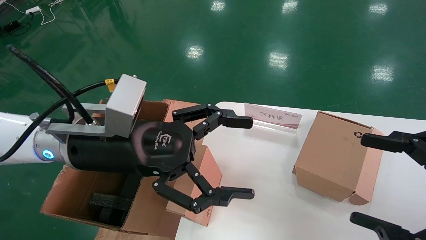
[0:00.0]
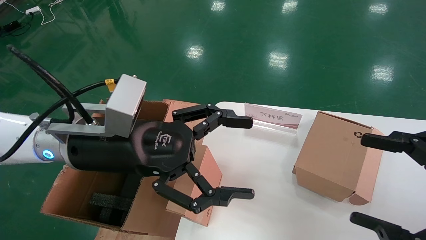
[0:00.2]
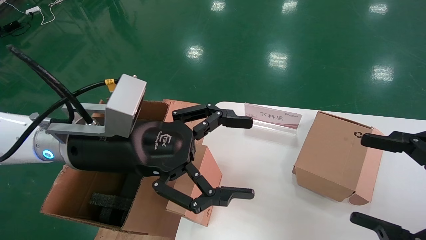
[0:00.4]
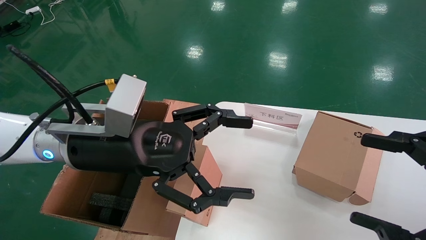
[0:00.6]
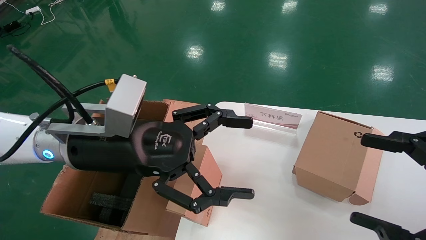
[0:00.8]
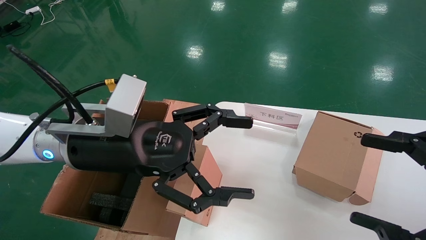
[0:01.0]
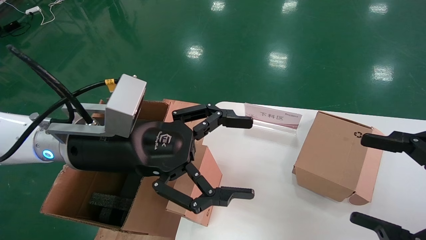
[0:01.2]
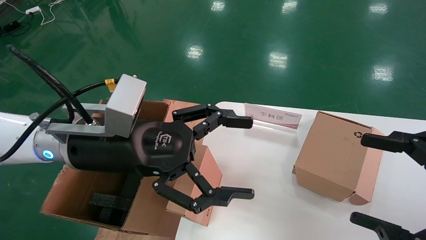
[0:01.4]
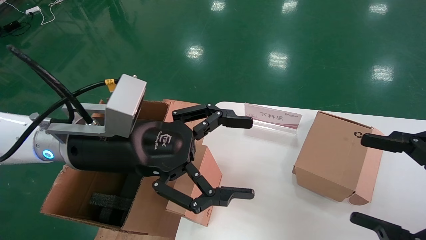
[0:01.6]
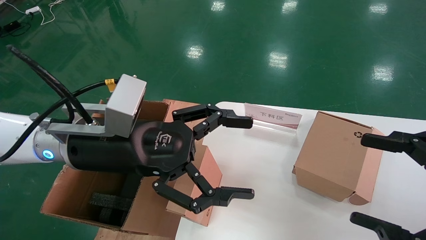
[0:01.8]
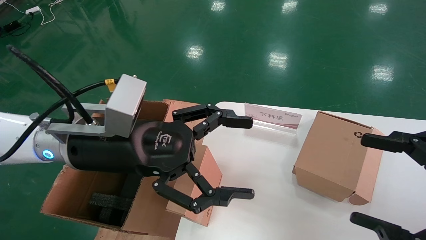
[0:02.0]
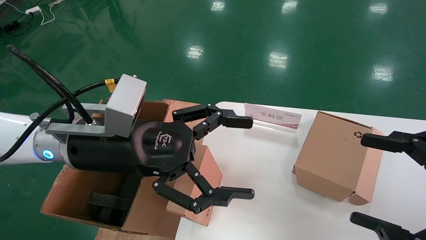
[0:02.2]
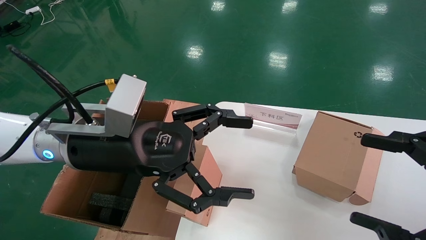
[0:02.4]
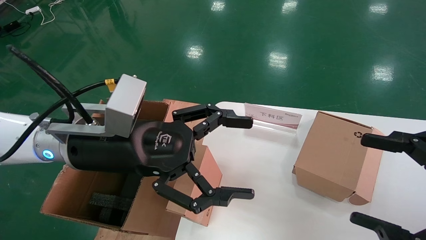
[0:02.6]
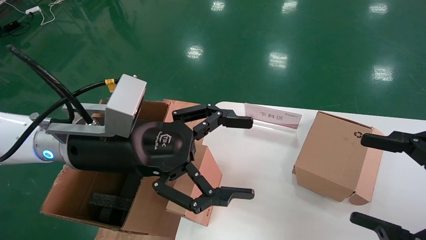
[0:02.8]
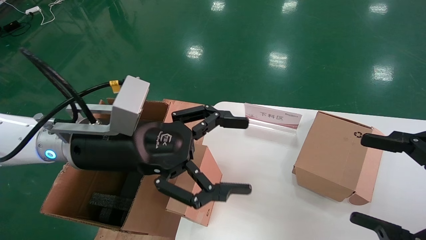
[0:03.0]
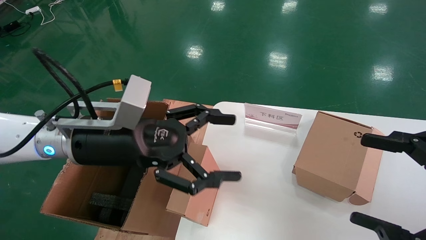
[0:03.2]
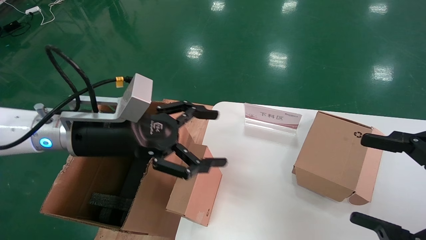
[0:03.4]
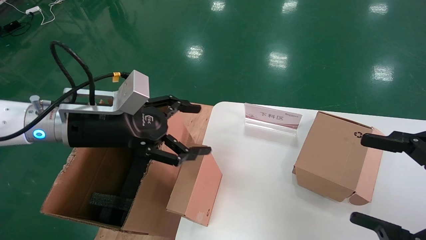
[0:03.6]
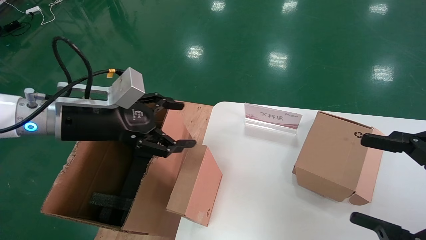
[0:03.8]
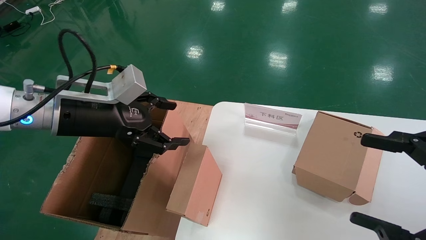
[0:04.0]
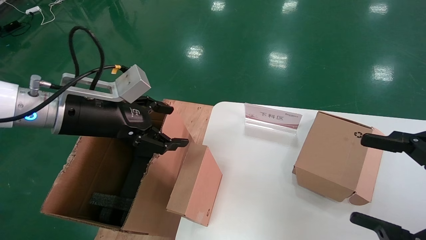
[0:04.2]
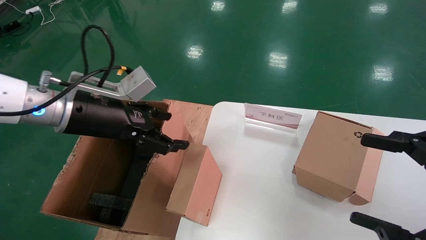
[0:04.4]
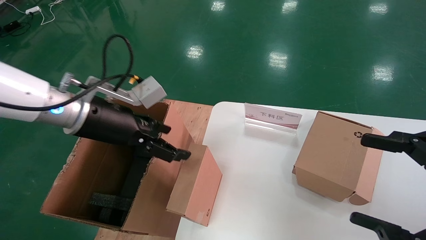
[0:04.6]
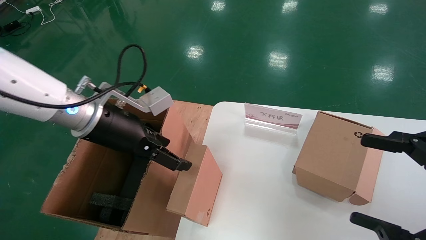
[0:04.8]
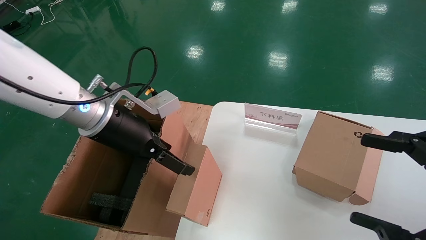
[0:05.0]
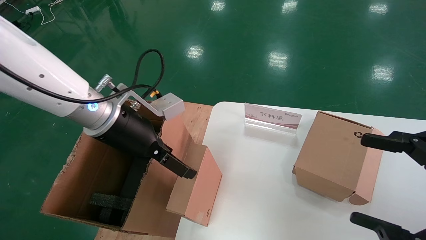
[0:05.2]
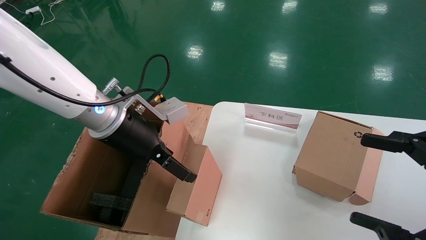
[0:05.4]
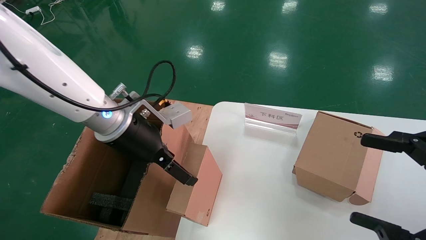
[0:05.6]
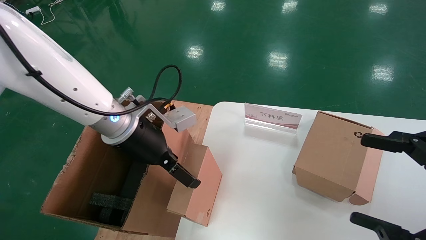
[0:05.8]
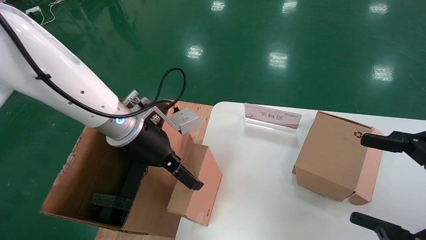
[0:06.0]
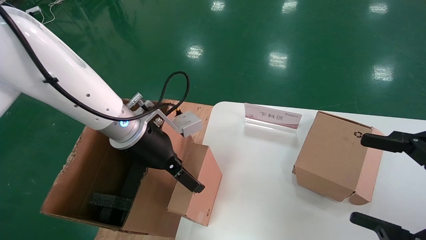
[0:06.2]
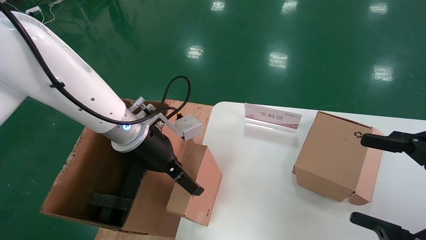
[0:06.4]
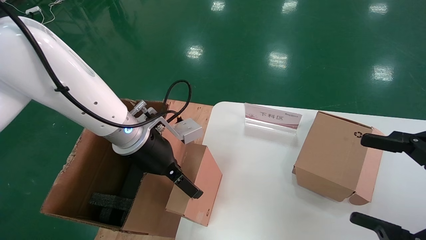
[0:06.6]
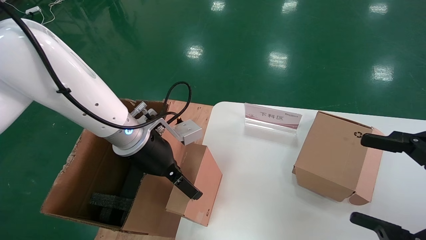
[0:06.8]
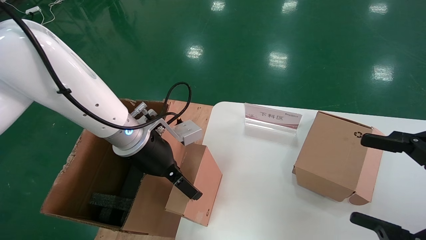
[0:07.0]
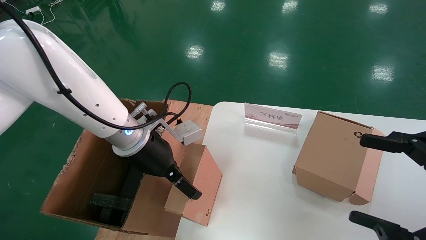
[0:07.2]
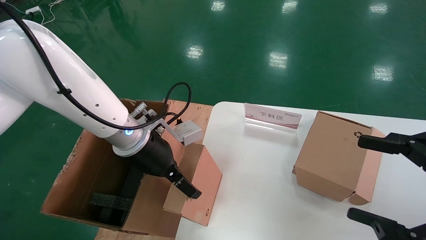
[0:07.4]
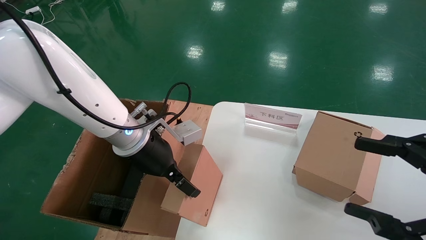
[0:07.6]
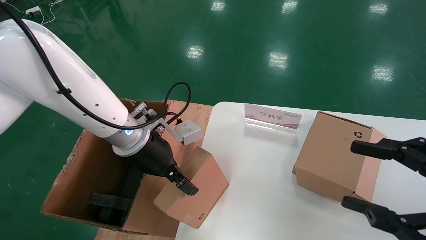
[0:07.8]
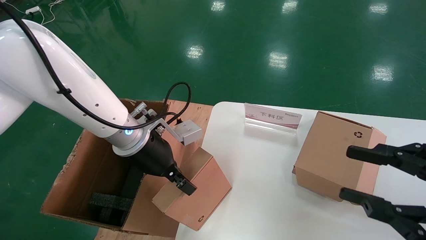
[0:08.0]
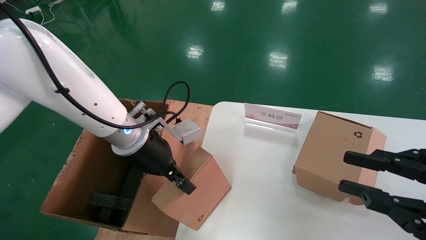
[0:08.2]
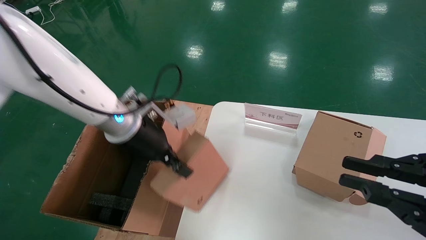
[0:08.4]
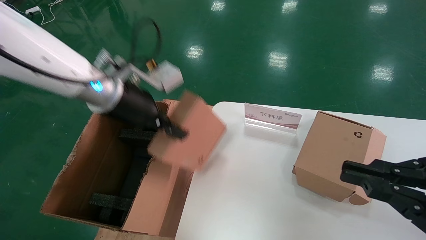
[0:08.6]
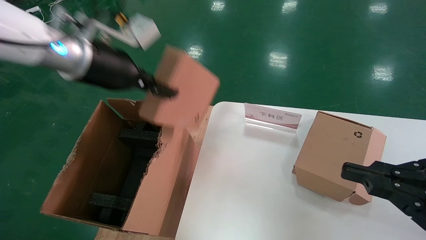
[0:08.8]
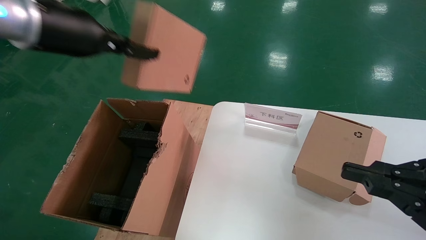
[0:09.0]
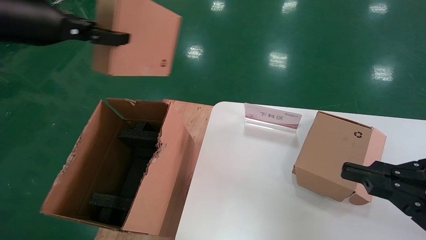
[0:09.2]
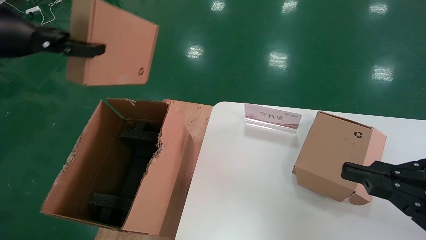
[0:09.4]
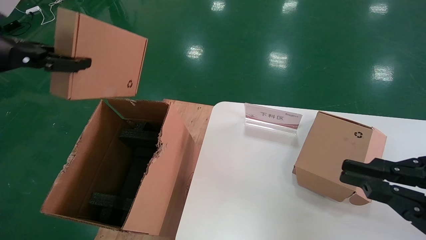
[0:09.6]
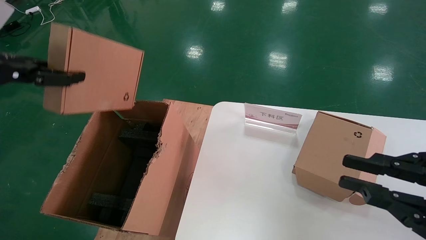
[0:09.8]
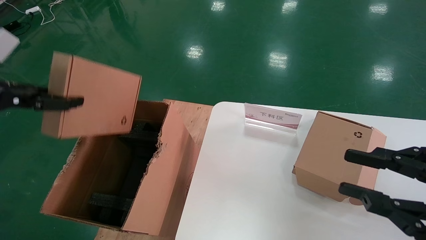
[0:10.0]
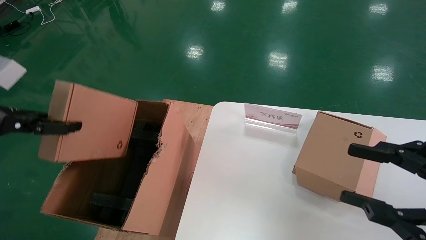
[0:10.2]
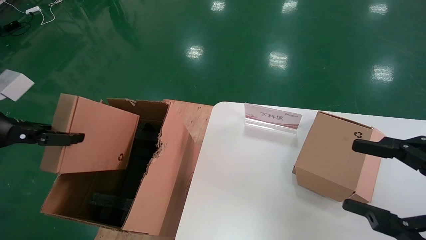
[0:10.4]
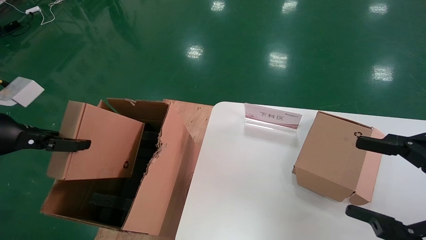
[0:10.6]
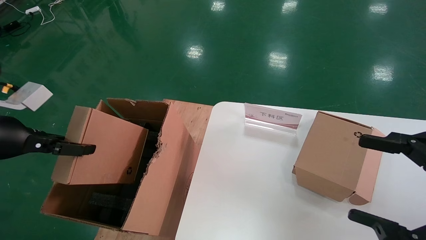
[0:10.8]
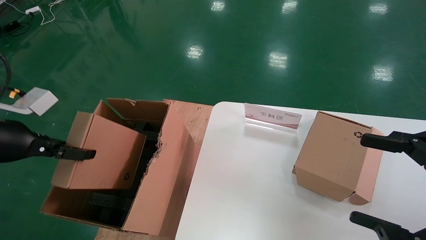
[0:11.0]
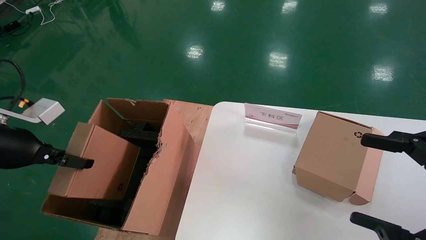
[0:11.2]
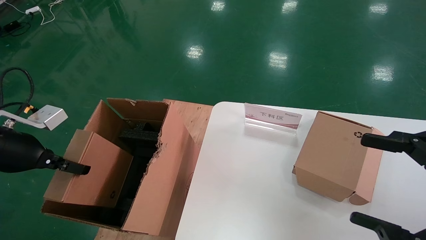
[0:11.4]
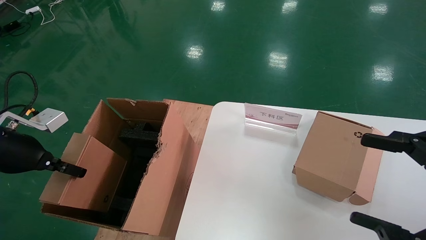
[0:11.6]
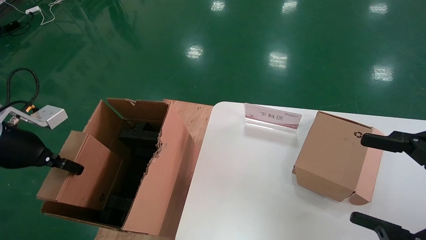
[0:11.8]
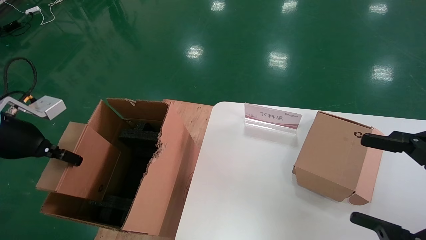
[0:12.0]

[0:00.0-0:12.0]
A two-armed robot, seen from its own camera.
Task of the whole recording: put the box on the table into the big box.
Step, 0:00.0 to 0:07.8: Grasp the paper box.
0:00.0 to 0:03.0: Neither gripper changes place.
0:03.0 to 0:04.4: The left gripper travels to the left by some 5 cm.
0:04.4 to 0:06.0: The left gripper moves to the right, some 5 cm.
0:06.0 to 0:07.6: There are only small adjustments of the grippers.
0:07.6 to 0:09.0: The right gripper closes up; the left gripper shifts about 25 cm upward and to the left, and closes its fingers.
0:09.0 to 0:10.4: The right gripper opens, while the left gripper travels downward, to the left and backward by some 20 cm.
0:10.4 to 0:12.0: The left gripper shifts roughly 5 cm forward; the right gripper opens up.

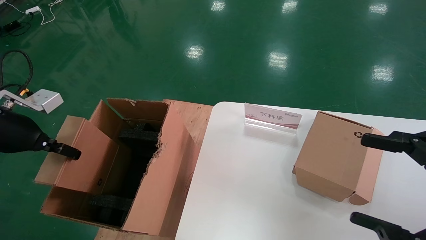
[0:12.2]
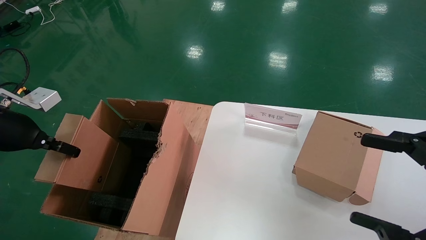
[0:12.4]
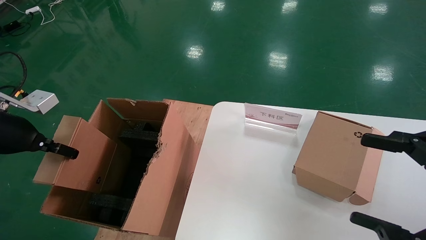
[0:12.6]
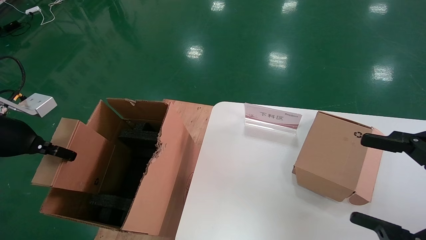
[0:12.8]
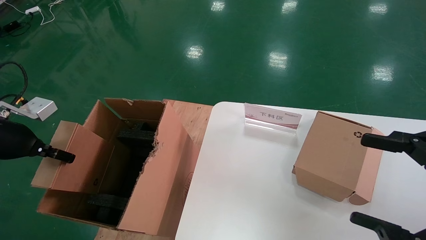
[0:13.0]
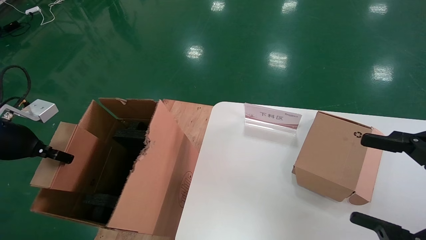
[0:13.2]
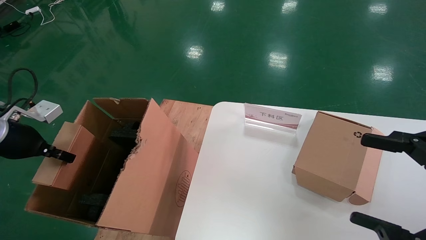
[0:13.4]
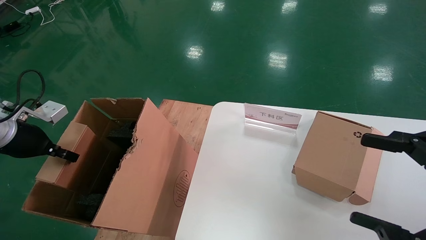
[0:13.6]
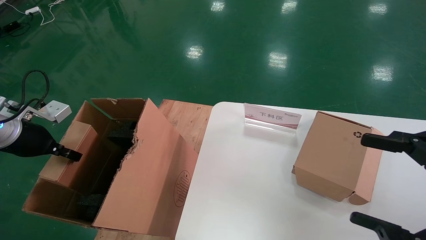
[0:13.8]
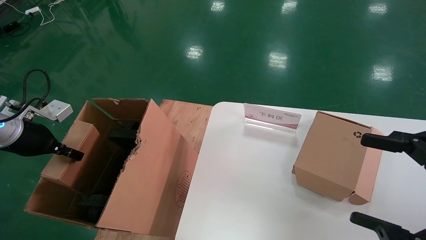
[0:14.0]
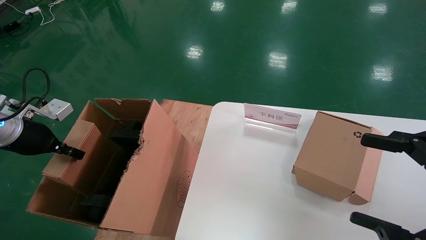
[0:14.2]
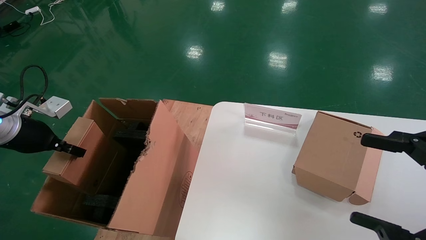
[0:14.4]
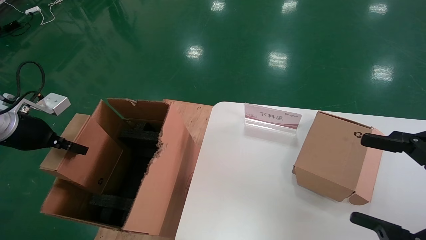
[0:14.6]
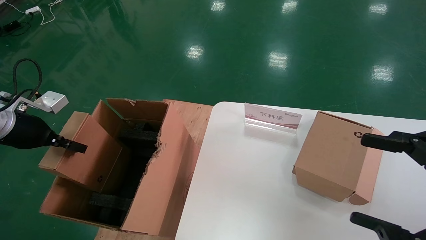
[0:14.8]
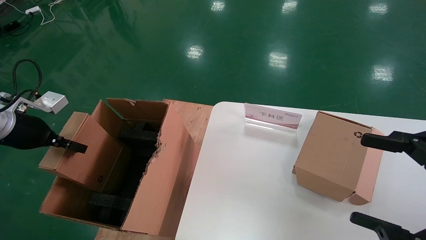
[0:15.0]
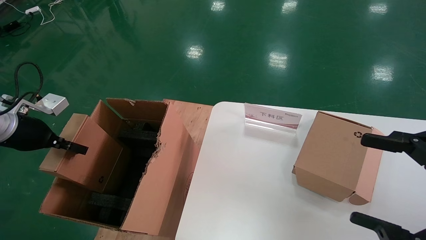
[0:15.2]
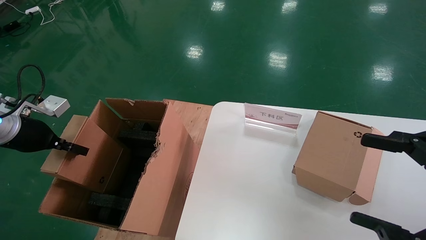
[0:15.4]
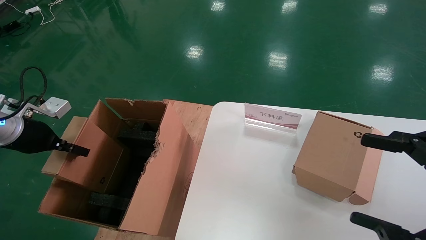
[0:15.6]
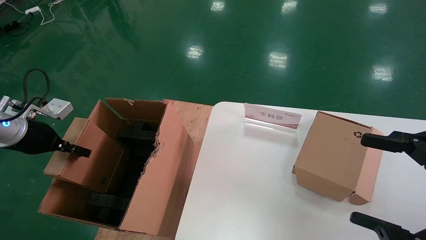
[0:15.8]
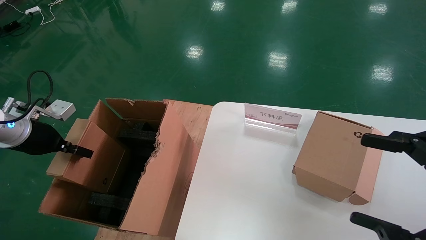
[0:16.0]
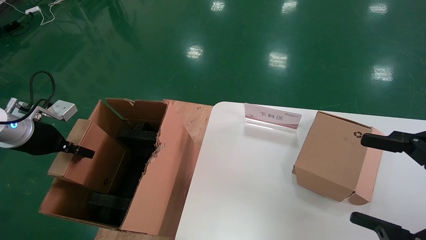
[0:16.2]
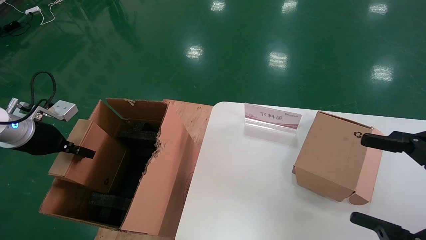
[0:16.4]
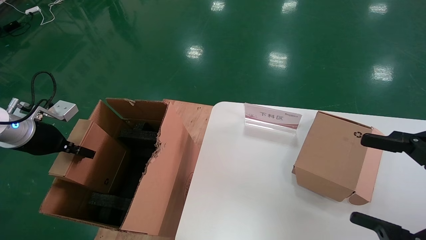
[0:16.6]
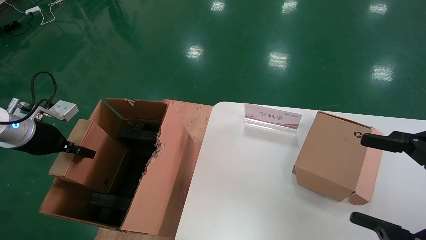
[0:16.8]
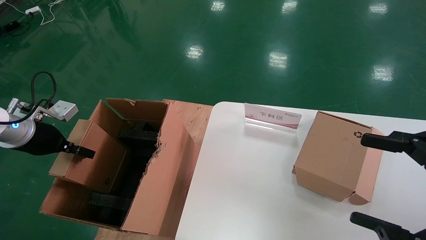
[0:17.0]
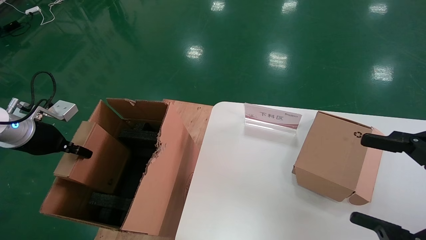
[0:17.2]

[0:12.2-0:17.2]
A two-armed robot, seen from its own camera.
Task of the whole recording: put the box on the table into the big box.
0:12.2 to 0:13.8: The left gripper is displaced downward by approximately 5 cm.
0:13.8 to 0:17.2: The grippers make only small movements.
